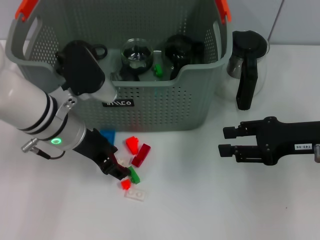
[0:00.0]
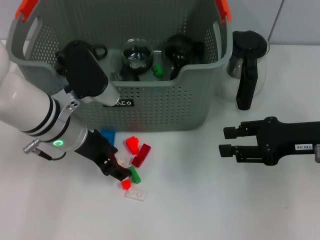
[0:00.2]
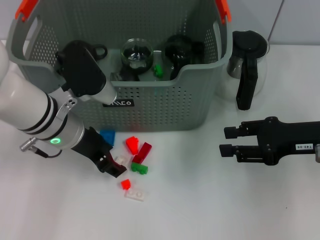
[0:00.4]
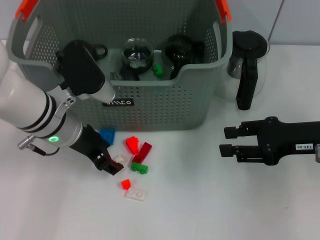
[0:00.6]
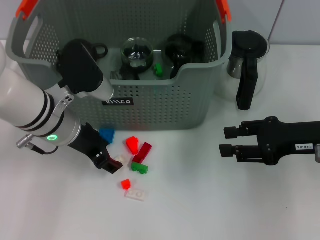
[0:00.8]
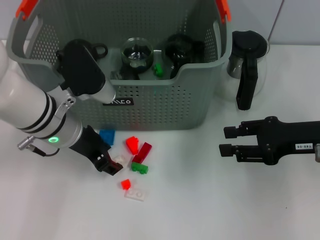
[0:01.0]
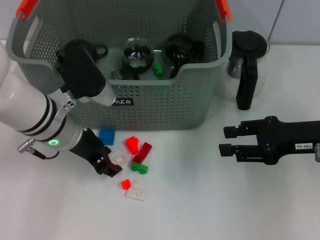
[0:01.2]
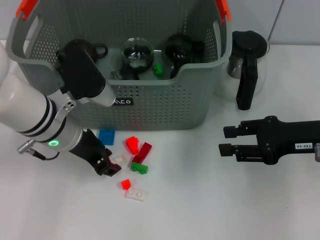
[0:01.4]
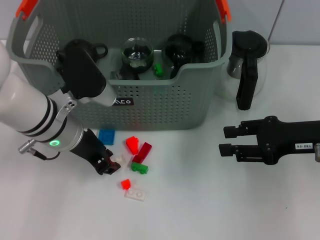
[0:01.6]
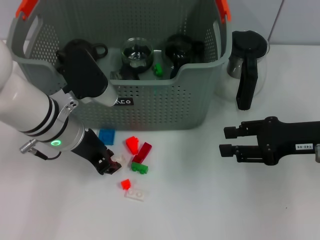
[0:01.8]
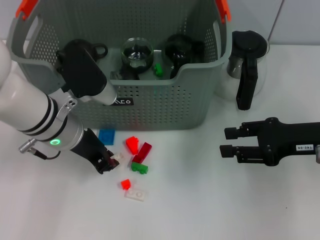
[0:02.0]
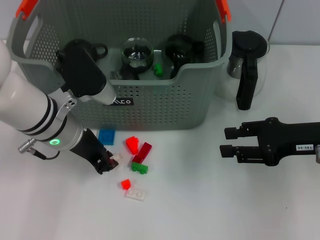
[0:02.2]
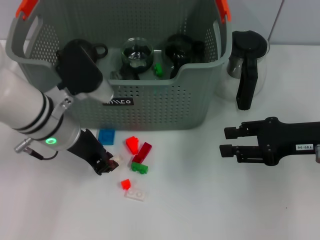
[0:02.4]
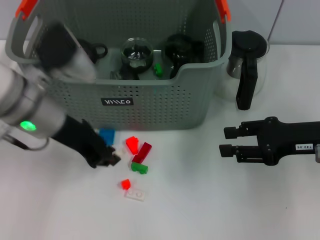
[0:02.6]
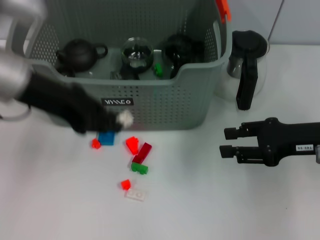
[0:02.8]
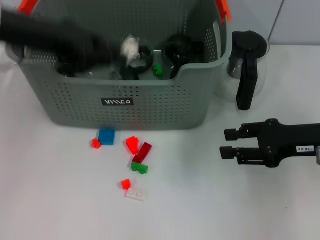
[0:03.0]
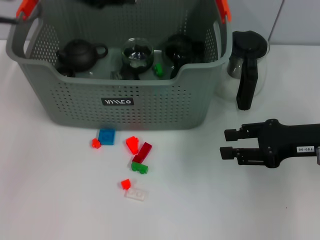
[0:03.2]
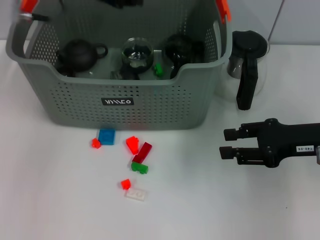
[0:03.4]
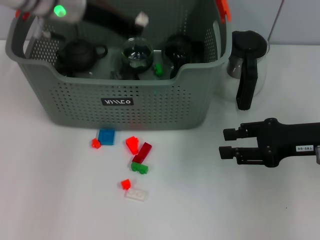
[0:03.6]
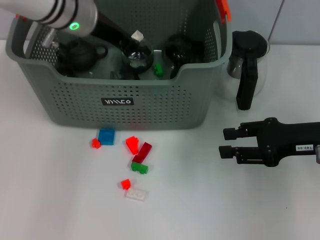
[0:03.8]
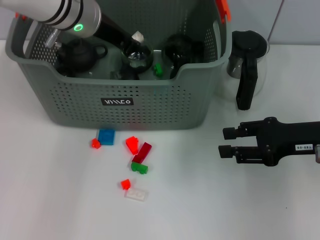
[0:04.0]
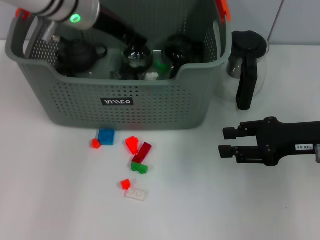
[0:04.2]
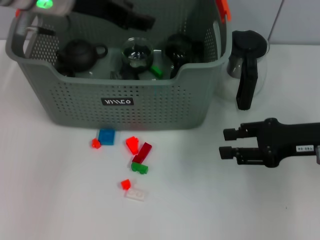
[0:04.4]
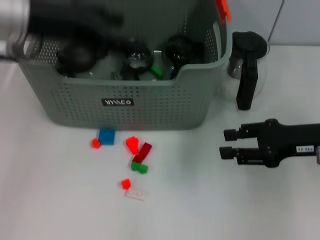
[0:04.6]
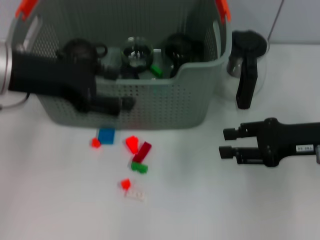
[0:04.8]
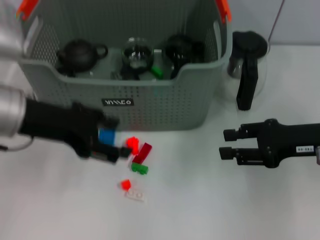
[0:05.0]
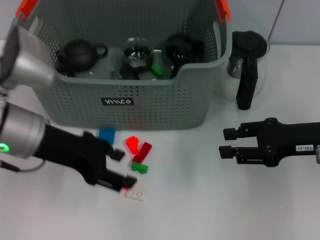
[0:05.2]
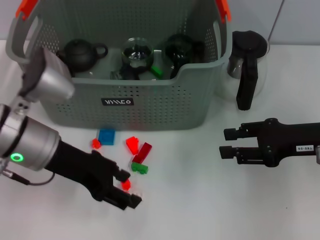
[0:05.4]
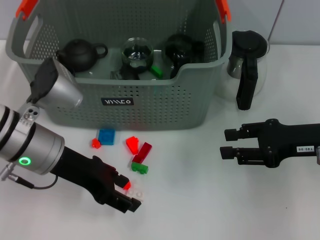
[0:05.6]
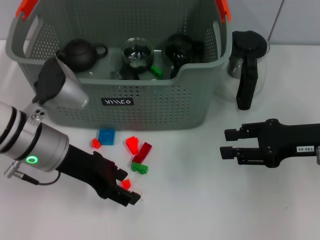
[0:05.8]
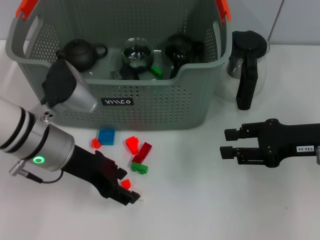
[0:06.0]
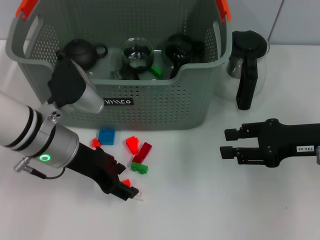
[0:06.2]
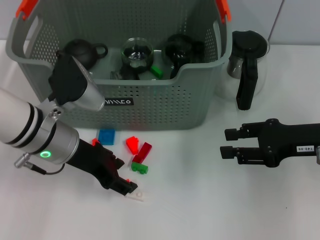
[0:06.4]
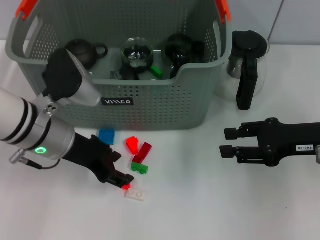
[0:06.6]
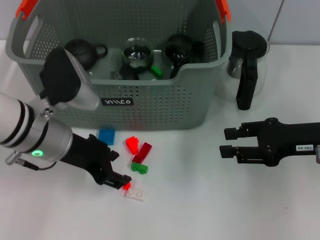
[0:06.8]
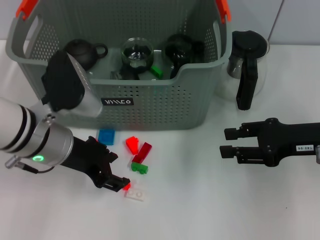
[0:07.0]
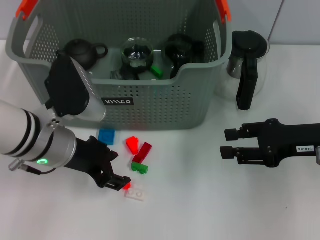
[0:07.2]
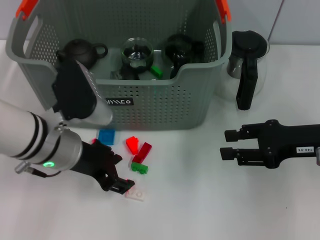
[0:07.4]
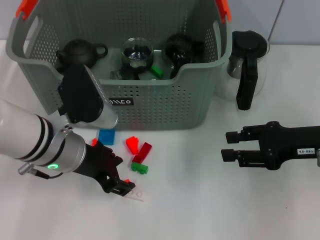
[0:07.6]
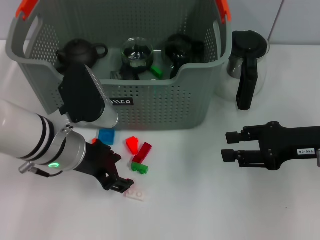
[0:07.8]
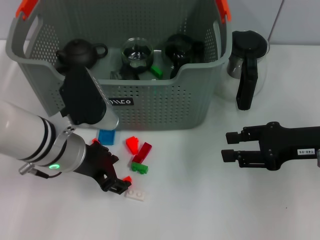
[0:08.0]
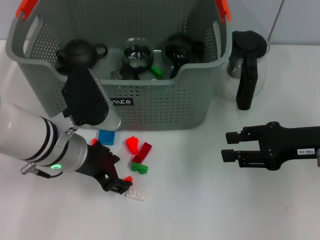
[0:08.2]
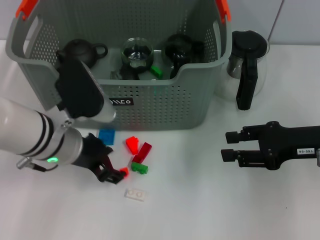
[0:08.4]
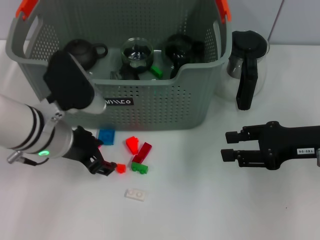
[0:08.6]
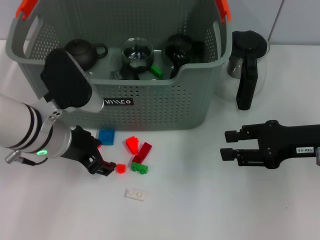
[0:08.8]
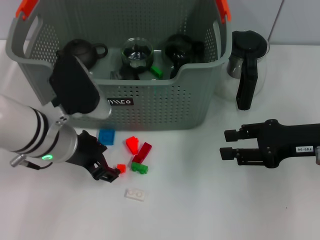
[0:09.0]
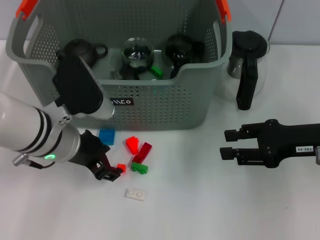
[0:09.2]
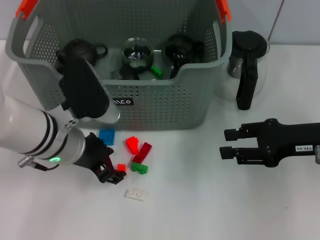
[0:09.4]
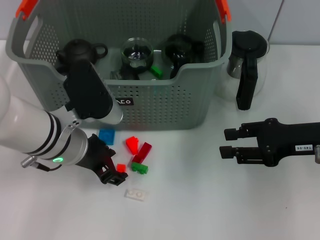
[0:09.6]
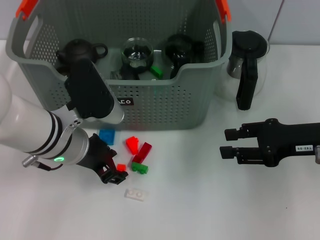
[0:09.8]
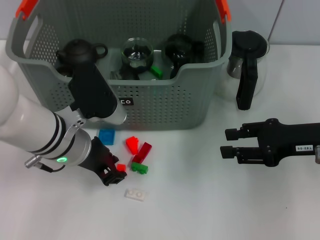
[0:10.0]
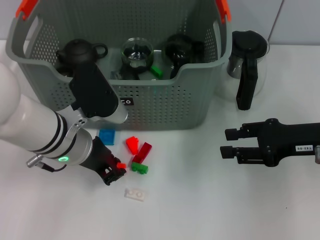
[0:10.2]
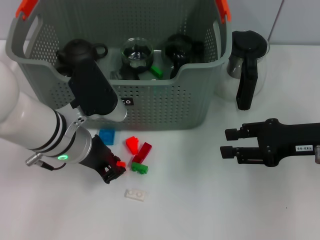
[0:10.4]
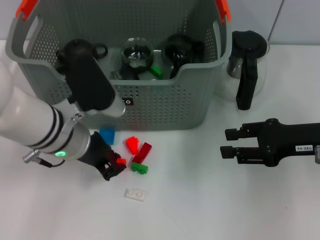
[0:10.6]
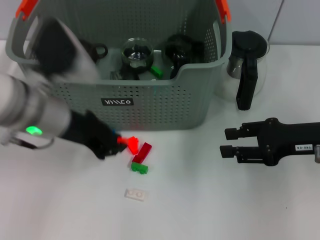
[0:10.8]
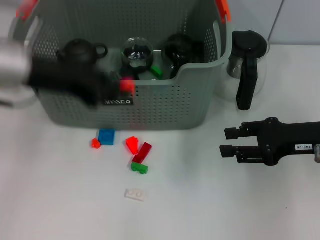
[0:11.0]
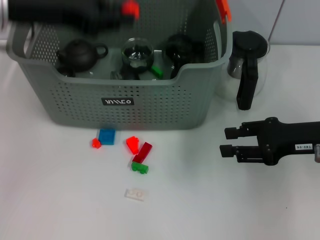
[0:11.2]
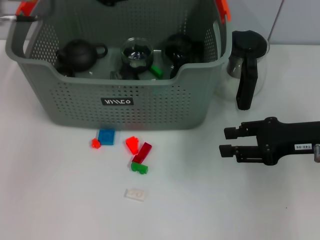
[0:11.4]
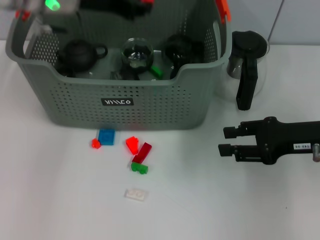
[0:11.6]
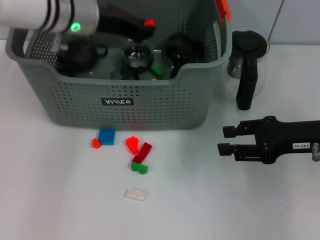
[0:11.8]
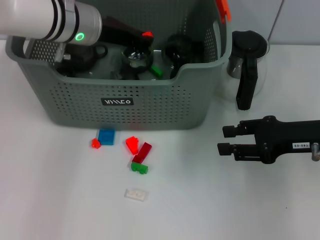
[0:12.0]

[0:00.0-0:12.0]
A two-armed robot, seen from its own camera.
Task of the whole recording: pick up the teacup on the table and place it into the storage bin, pick up the block on the table and place it into the storage bin.
Step, 0:00.0 to 0:02.4: Grasp the white block with left gripper.
Step, 0:02.8 to 0:04.4: Place the white block in the storage box with left gripper.
Step, 0:04.6 to 0:10.6: Grasp the orange block with left gripper.
0:00.0 to 0:01.6: The two grippers keep their place.
0:01.6 to 0:03.0: The left gripper moves upward, approximately 15 cm.
0:03.0 to 0:04.4: The left gripper moves to the right and forward, roughly 10 cm.
0:04.4 to 0:06.0: The left gripper is displaced downward and backward by approximately 15 cm, and opens its fingers.
0:06.0 to 0:07.6: The grippers make only small movements.
0:07.6 to 0:09.0: There are only small adjustments of the grippers.
0:09.0 to 0:10.4: The left gripper closes up.
0:10.4 to 0:12.0: The left gripper is displaced forward and upward by some 15 cm.

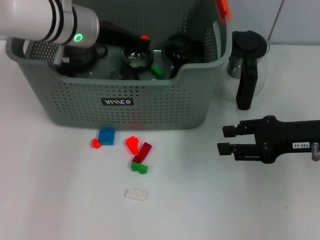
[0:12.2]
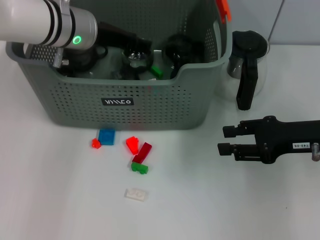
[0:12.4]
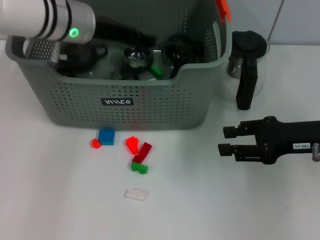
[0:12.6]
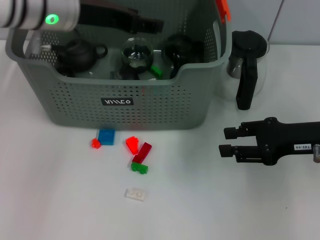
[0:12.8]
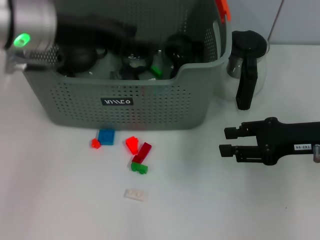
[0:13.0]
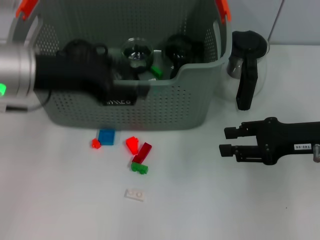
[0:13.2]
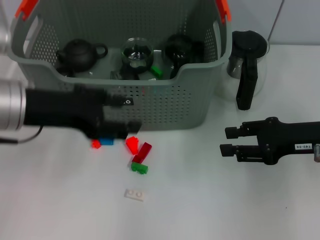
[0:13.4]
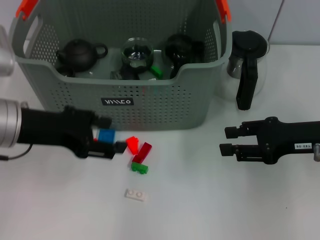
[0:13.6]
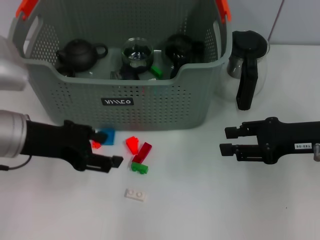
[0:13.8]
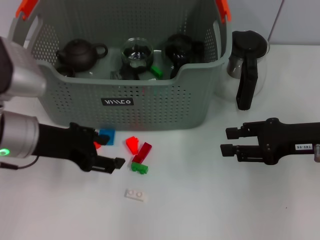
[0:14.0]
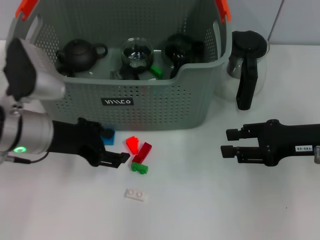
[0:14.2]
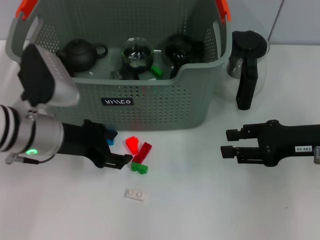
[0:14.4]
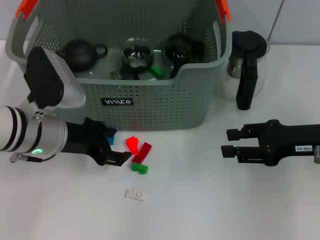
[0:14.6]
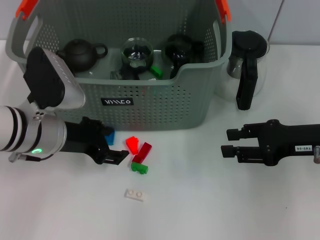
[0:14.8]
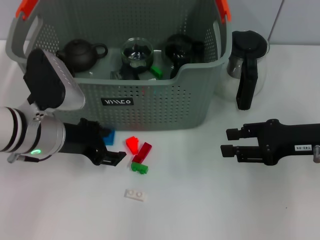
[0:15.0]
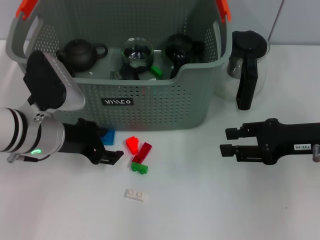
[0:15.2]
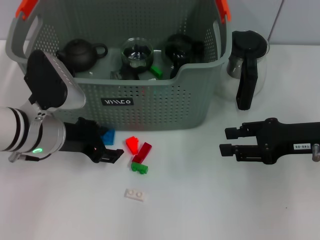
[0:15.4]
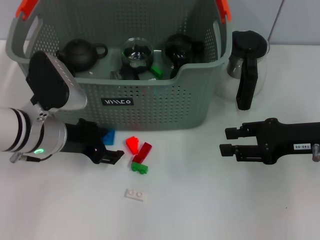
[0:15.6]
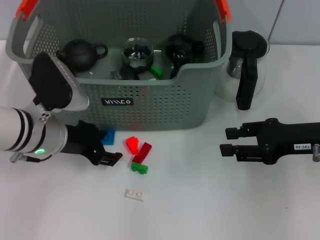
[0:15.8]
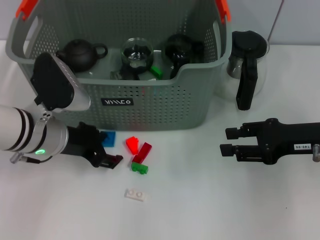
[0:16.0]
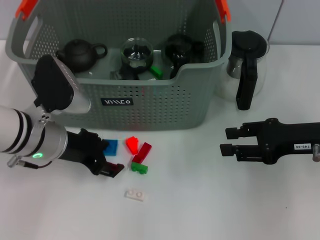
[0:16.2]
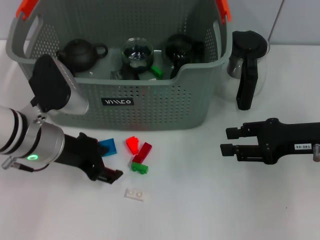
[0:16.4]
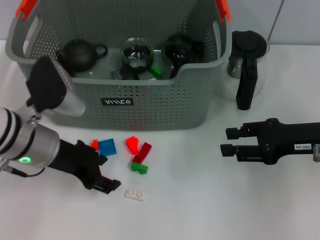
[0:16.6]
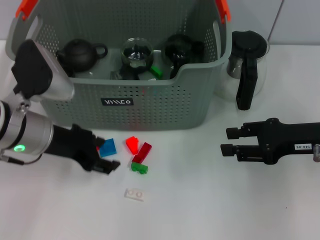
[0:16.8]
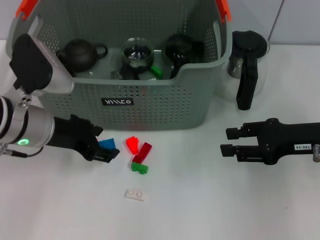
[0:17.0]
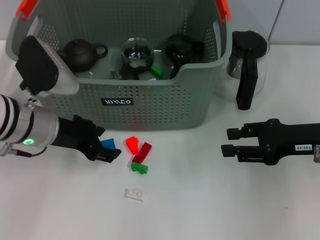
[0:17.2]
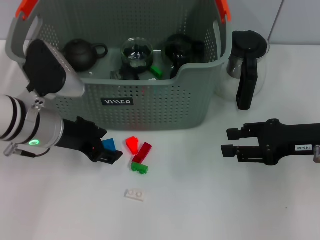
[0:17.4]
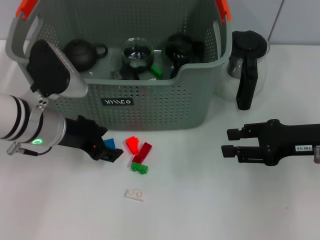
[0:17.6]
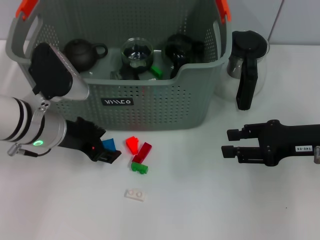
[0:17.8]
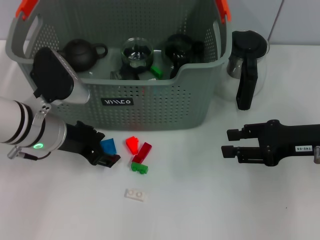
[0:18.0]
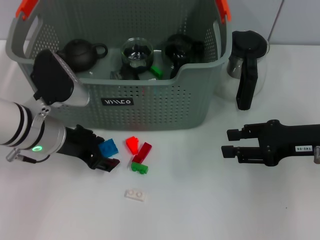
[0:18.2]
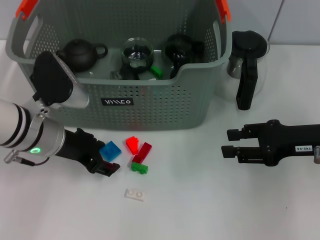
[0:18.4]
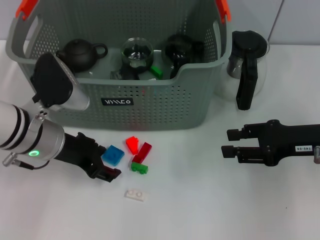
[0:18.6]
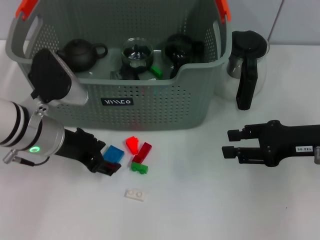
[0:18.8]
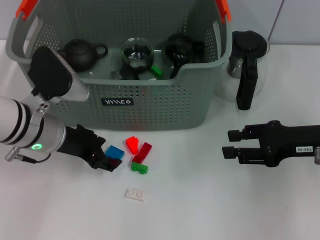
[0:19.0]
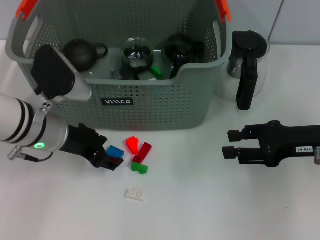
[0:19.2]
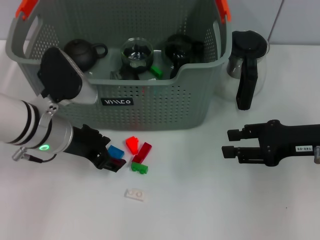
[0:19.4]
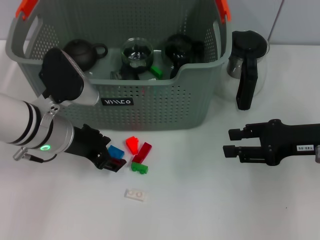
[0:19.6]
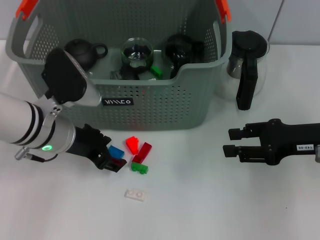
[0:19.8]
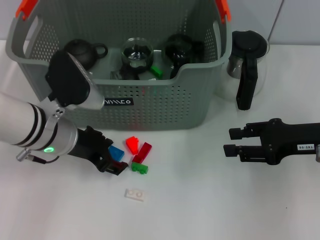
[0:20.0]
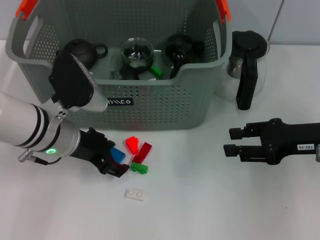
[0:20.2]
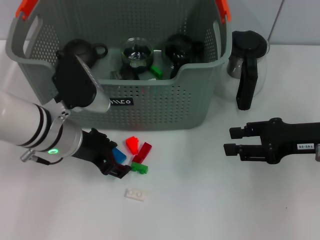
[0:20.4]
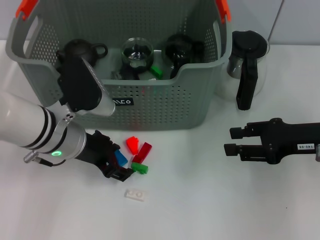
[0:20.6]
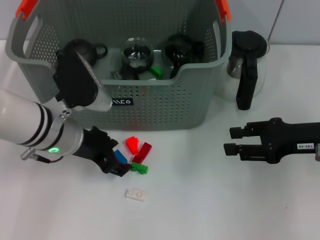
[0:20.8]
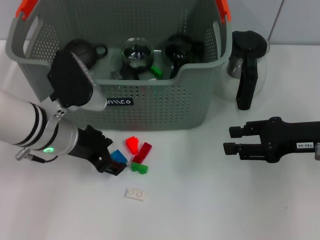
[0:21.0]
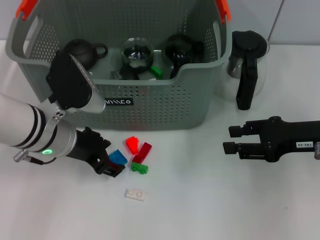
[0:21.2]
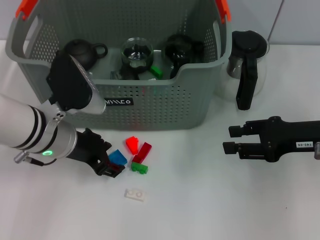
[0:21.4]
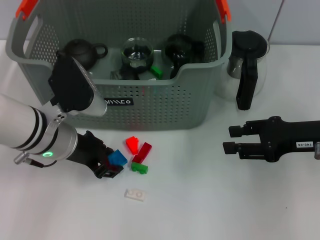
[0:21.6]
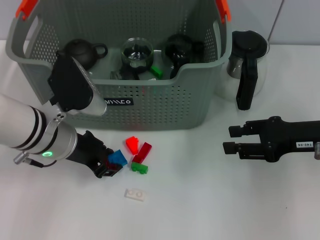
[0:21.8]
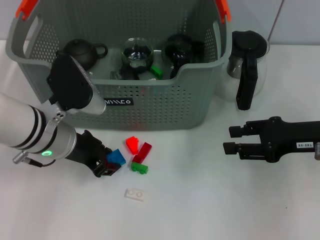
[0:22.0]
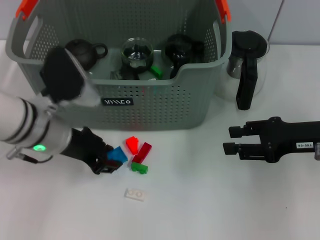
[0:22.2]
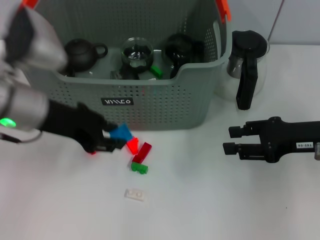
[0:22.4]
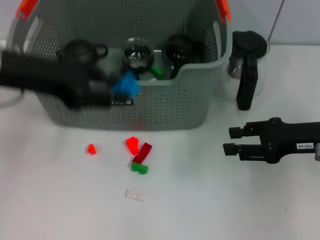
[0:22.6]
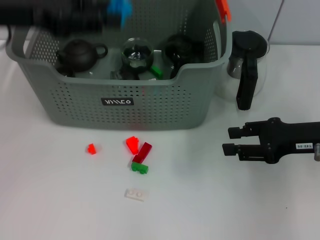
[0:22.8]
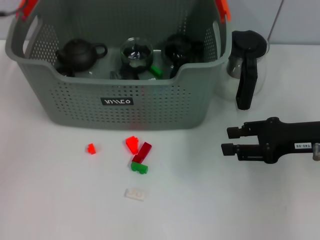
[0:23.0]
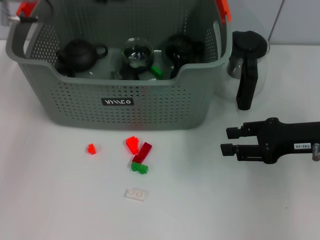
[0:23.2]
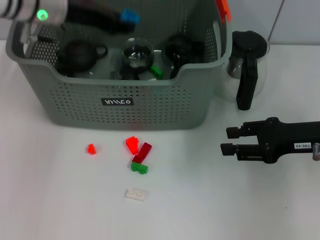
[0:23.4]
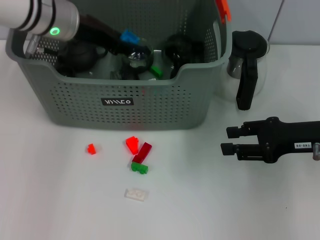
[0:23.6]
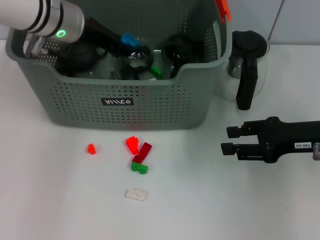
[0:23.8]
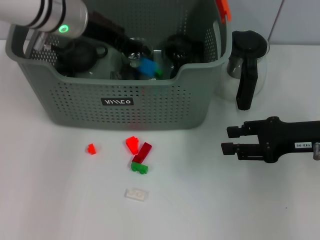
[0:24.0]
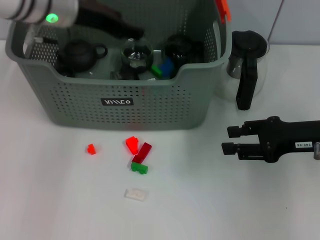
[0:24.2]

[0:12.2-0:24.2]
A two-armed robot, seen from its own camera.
Task of the whole recording: pick up the teacup on the table and place it into the storage bin, pick up the block on the table and place it into the storage bin.
Step, 0:12.8 to 0:22.2: Grasp the dark blue block with left gripper.
0:12.2 to 0:13.8: The left gripper goes roughly 15 cm backward and to the left, and opens.
0:13.8 to 0:15.2: The left gripper moves downward, about 5 cm.
0:15.2 to 0:21.2: There are only small adjustments of the grippers.
0:21.2 to 0:22.6: The left gripper is displaced upward and to the left by about 15 cm, and closes up.
0:22.6 to 0:24.2: The left gripper moves forward and to the right, some 10 cm.
